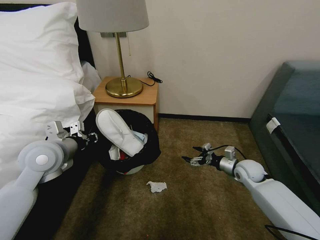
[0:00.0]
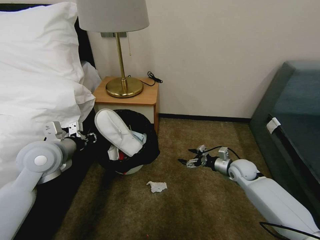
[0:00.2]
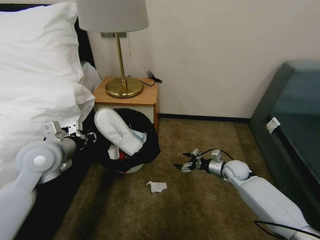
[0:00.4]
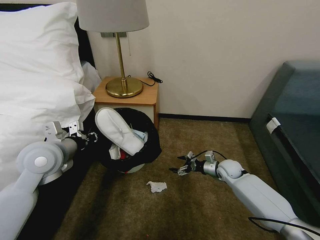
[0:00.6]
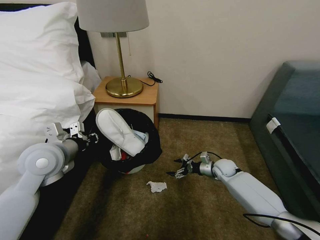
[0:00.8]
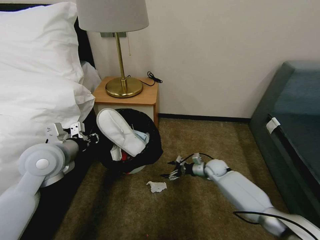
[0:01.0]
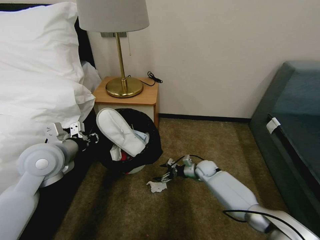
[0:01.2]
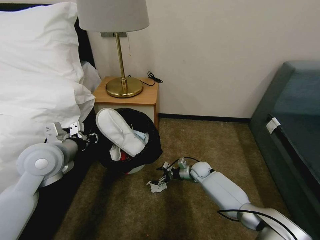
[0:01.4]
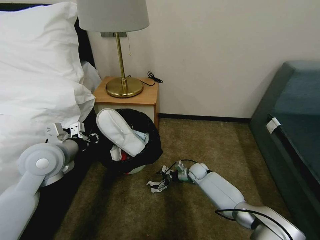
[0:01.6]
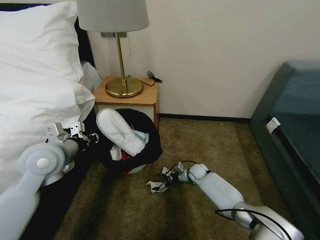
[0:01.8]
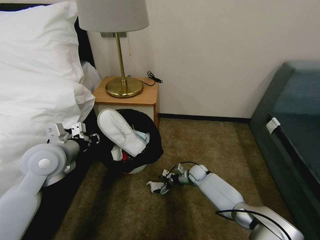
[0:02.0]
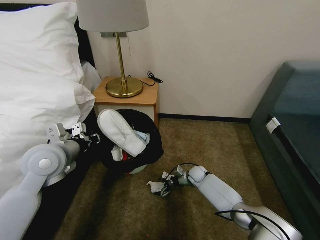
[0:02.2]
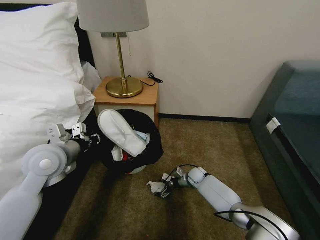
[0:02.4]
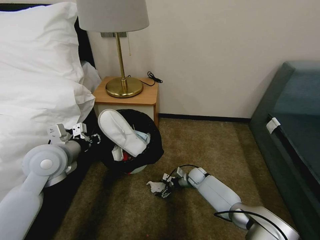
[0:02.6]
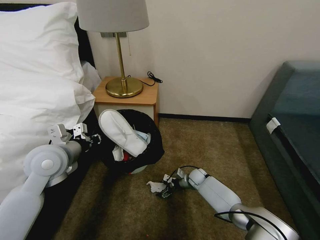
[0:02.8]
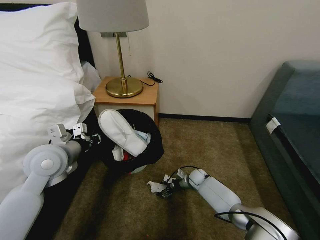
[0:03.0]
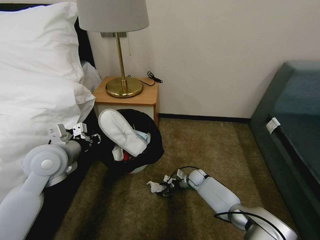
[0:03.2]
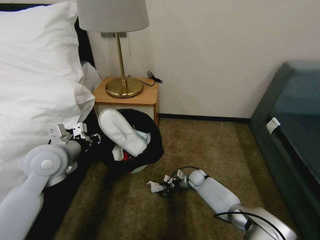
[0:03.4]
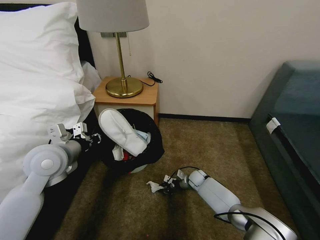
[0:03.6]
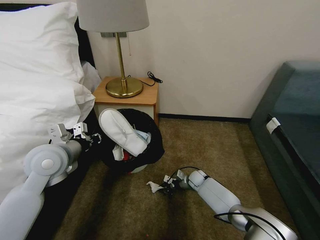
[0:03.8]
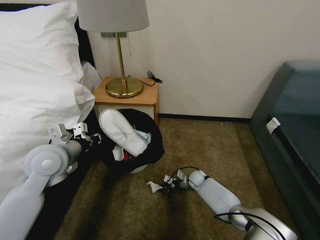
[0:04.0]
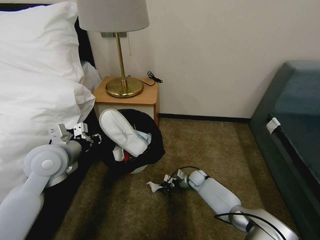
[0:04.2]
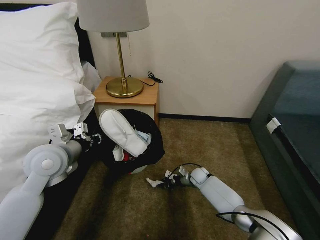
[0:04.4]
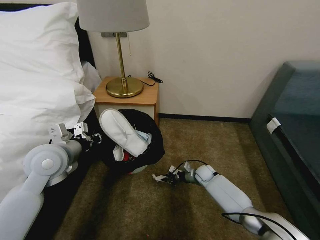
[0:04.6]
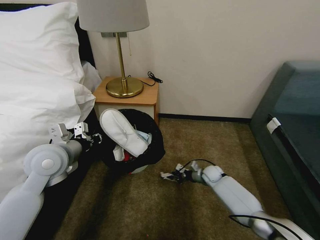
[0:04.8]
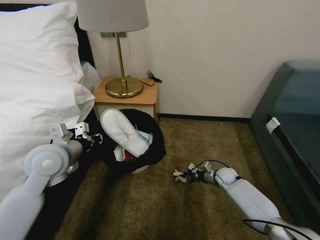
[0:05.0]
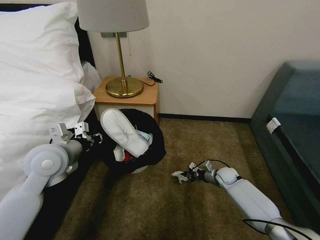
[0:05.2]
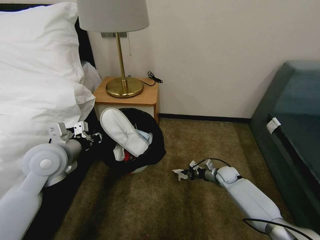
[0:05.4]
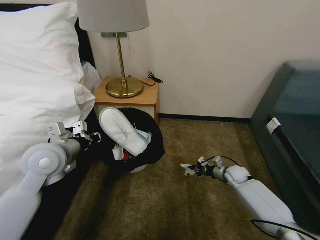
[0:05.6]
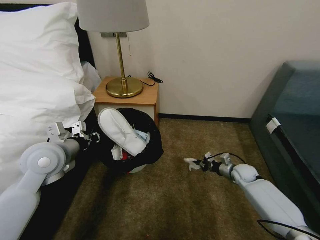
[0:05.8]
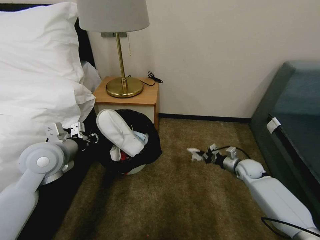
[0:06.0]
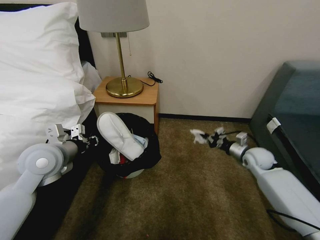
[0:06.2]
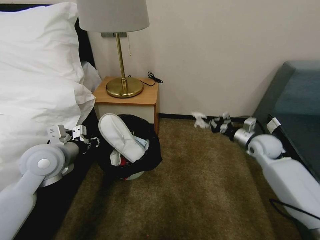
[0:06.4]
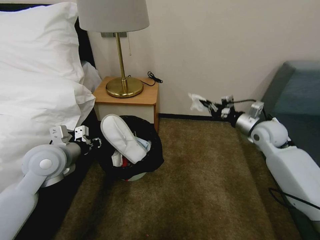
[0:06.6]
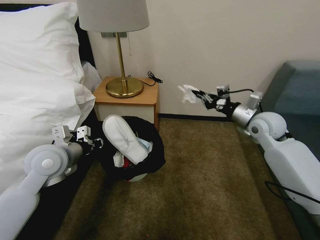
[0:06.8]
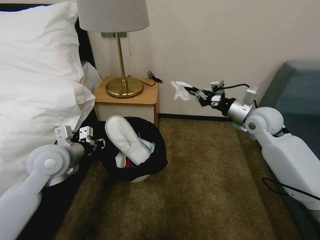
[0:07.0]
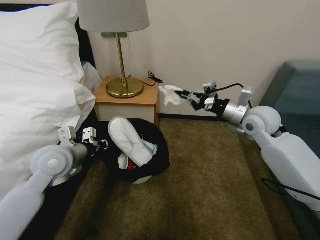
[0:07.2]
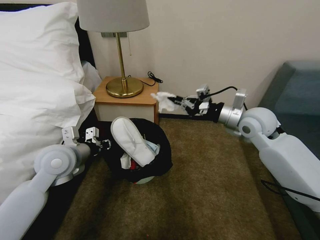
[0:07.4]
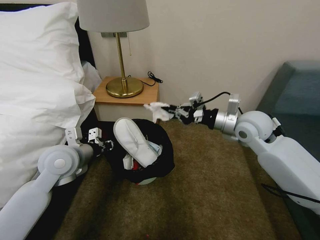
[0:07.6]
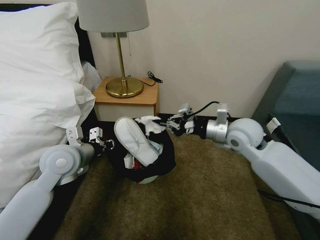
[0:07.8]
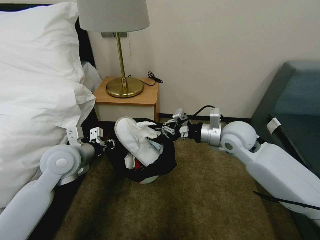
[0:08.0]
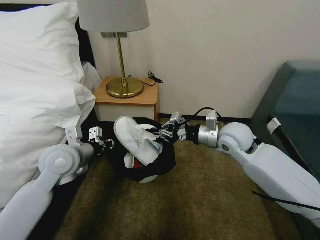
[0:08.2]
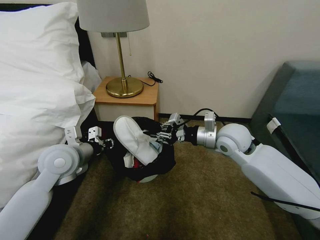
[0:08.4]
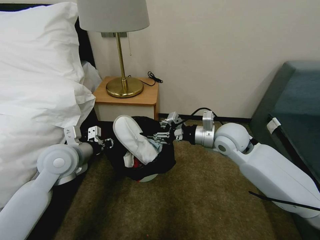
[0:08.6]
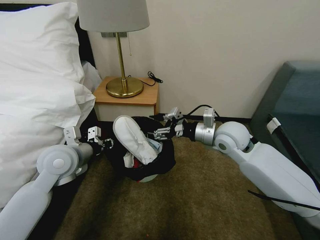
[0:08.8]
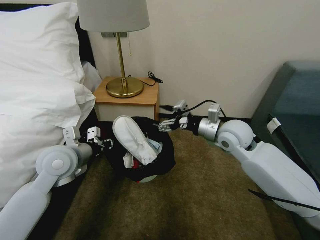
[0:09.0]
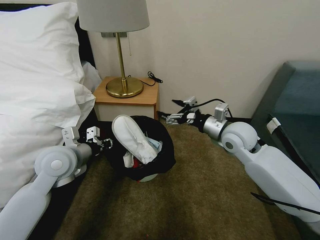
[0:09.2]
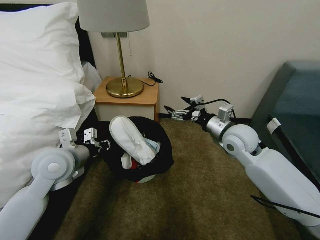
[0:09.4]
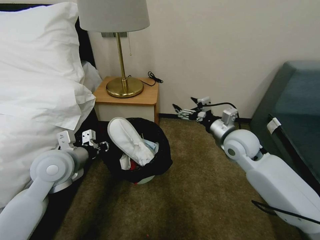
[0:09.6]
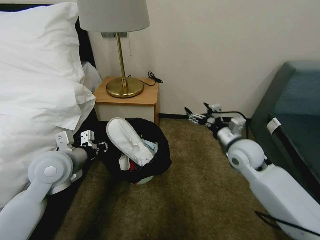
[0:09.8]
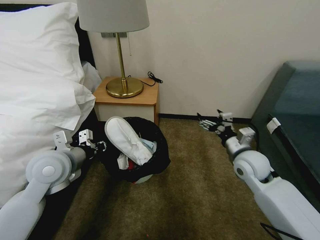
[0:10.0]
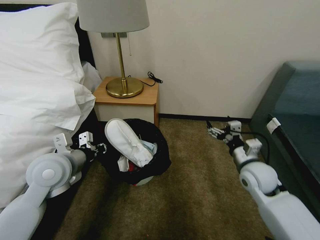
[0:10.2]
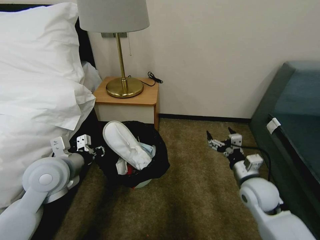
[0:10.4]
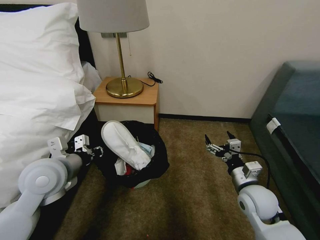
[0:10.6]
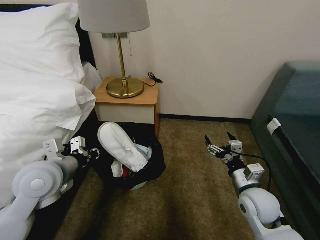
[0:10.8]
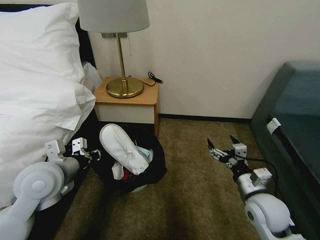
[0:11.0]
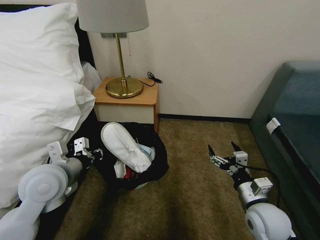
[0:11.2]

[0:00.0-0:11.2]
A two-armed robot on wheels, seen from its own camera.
Task of the whole recording: Pick up the trash bin, then pick up the garbage on the floor and place it into the trash bin.
0:00.0 to 0:01.6: The right gripper travels to the left, downward and forward by roughly 25 cm.
0:01.6 to 0:03.2: The right gripper closes.
0:03.2 to 0:04.8: The right gripper moves to the right, roughly 5 cm, and closes its fingers.
0:04.8 to 0:06.4: The right gripper shifts some 25 cm upward and to the right.
0:06.4 to 0:08.0: The right gripper is displaced to the left and upward by approximately 20 cm.
0:08.0 to 0:09.6: The right gripper opens up.
0:09.6 to 0:11.2: The right gripper goes some 20 cm backward and downward.

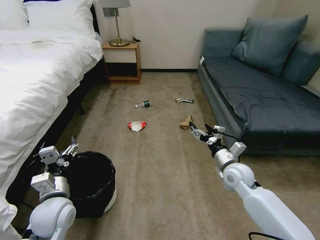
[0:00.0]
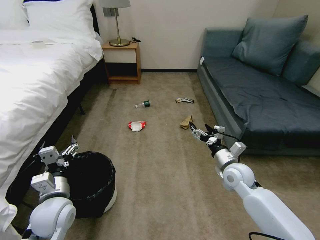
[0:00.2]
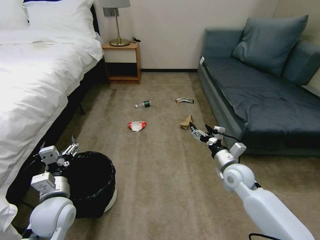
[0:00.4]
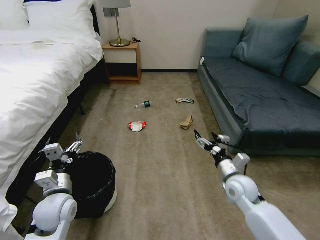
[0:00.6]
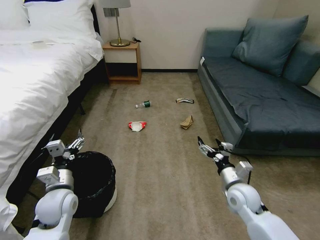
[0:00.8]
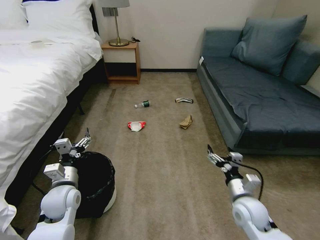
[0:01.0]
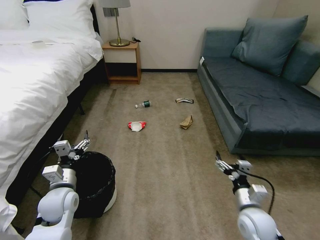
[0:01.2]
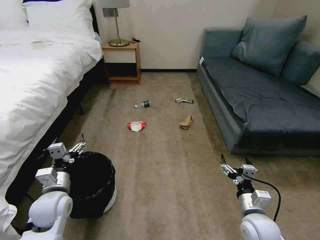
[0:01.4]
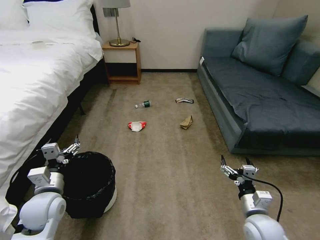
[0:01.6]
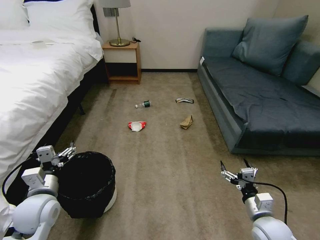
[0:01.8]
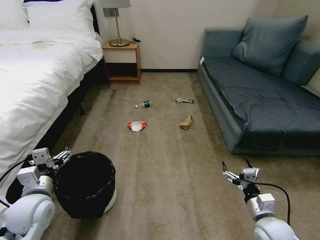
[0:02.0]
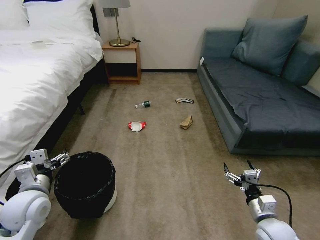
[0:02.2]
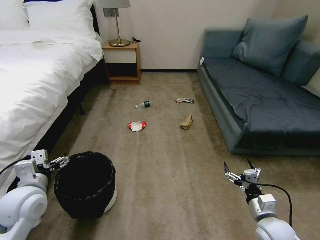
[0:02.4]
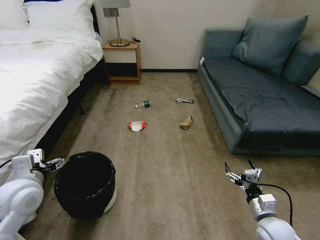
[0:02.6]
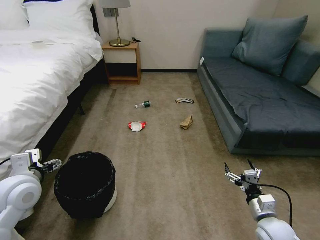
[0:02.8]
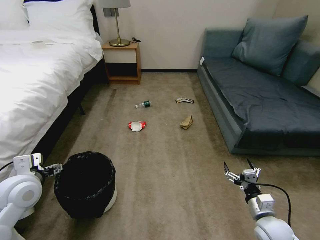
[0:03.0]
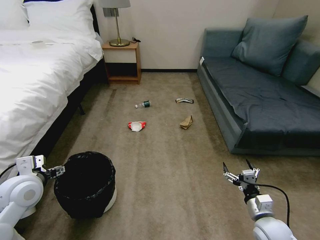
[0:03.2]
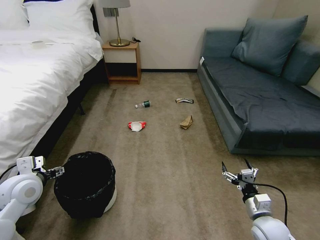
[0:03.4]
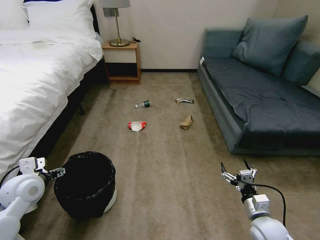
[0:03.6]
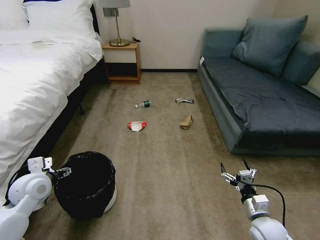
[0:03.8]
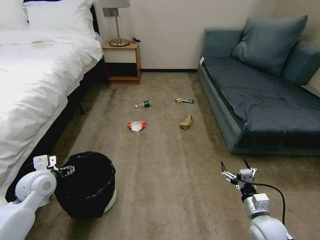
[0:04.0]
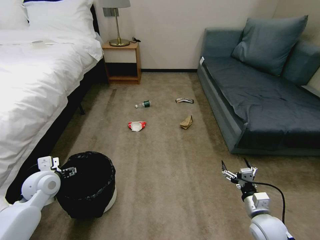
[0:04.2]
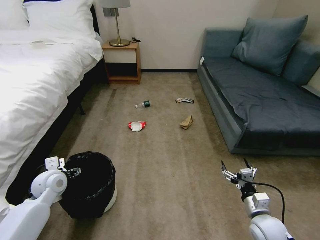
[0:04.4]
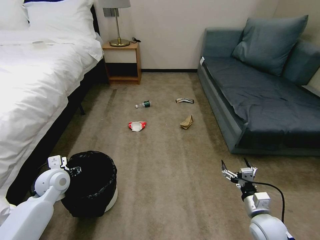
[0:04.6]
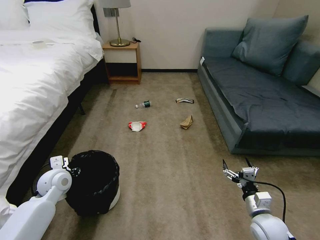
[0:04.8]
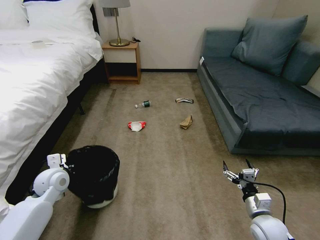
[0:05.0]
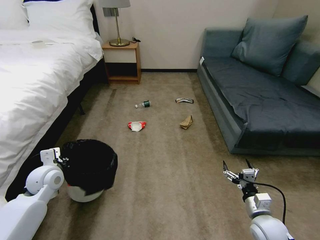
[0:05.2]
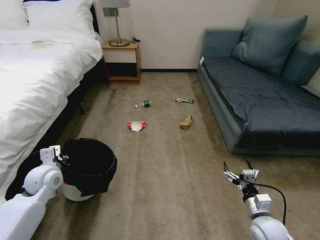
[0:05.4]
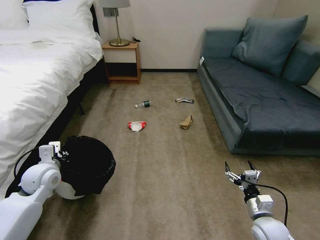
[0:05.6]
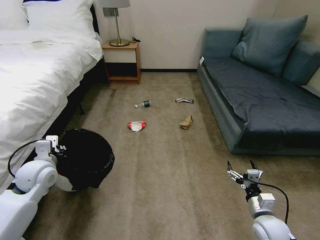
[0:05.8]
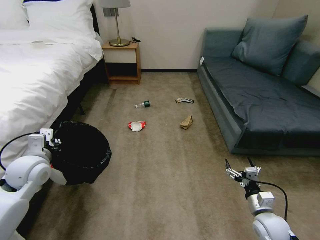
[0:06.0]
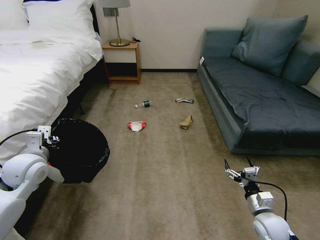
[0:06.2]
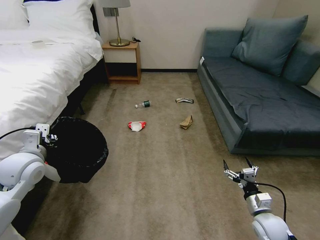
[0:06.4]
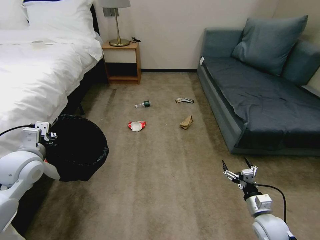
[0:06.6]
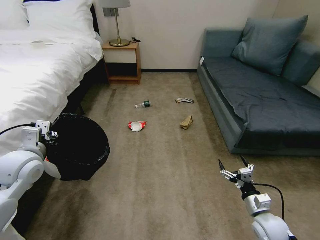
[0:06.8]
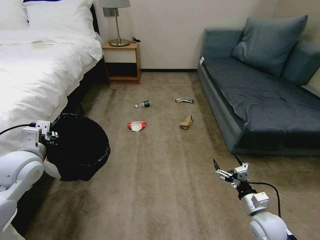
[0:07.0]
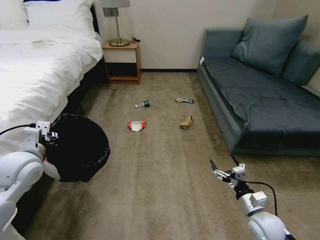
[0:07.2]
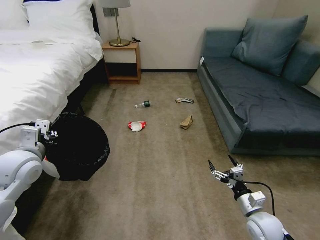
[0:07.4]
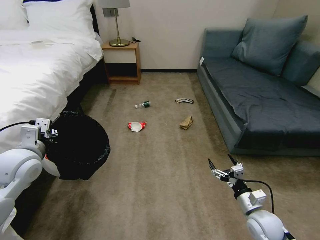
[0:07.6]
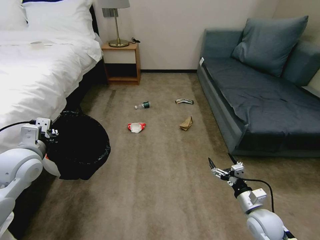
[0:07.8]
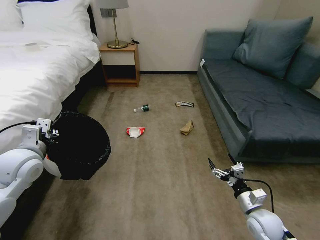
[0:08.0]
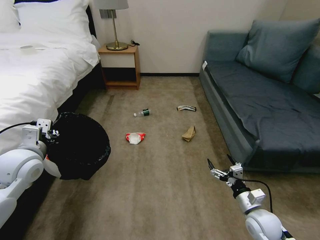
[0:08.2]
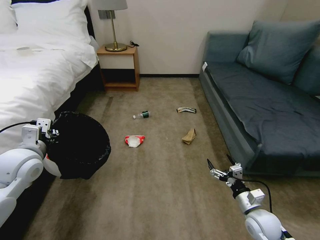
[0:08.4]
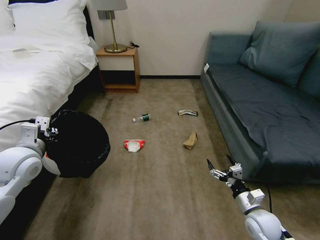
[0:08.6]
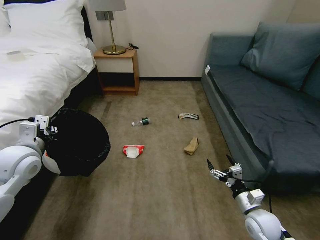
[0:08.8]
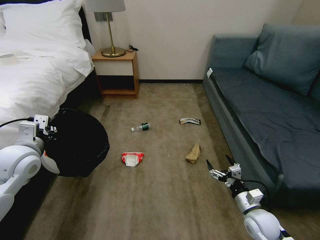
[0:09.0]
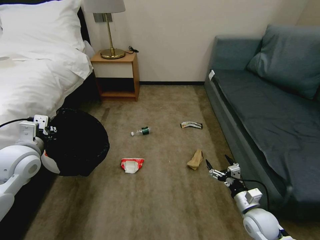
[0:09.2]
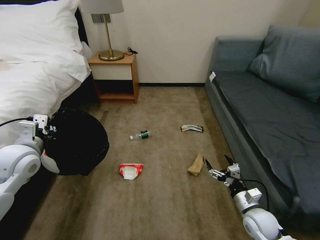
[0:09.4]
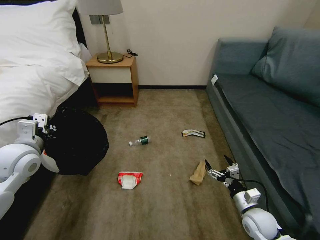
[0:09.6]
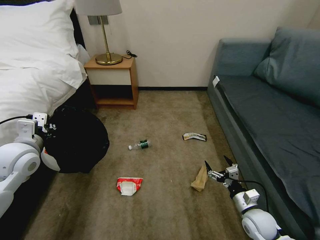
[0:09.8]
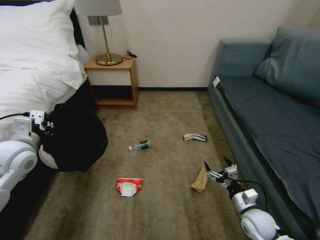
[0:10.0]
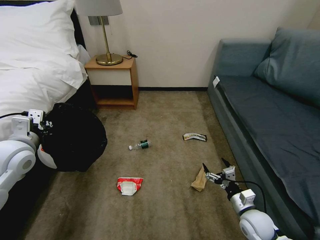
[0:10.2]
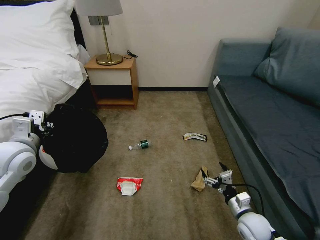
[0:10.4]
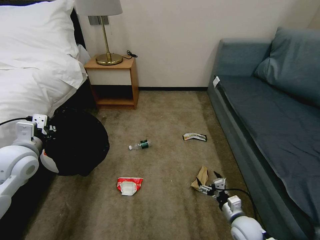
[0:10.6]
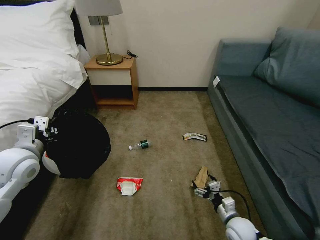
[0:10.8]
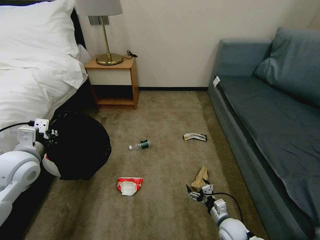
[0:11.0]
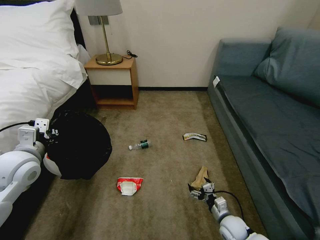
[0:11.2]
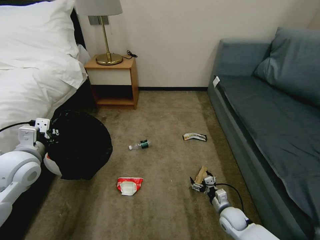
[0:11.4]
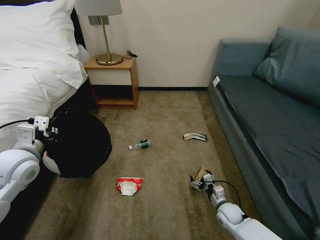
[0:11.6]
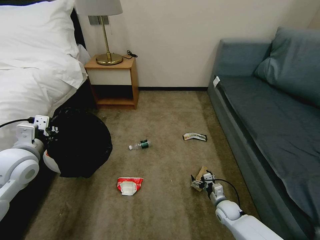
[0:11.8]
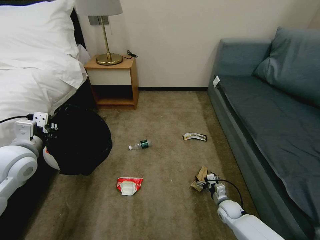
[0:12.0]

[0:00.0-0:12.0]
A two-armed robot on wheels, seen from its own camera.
Task of the whole recording: Pick up the trash bin, then pick up the garbage on the floor and place it into the trash bin.
0:01.6 to 0:03.0: The left gripper is displaced upward by approximately 5 cm. The right gripper changes place by about 5 cm.
0:03.0 to 0:04.4: The left gripper shifts roughly 10 cm downward and forward.
0:04.4 to 0:06.0: The left gripper is displaced upward by some 10 cm, and closes its fingers.
0:06.0 to 0:07.6: The grippers move only a little.
0:10.4 to 0:12.0: The right gripper moves downward and forward, about 15 cm.
